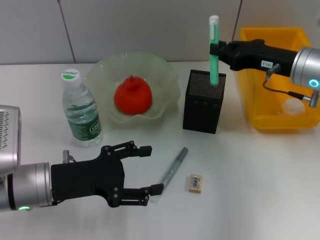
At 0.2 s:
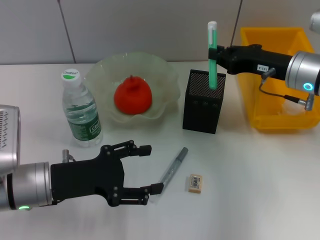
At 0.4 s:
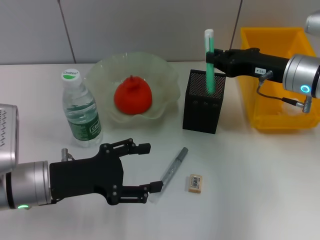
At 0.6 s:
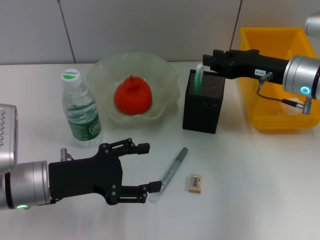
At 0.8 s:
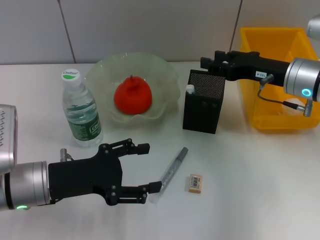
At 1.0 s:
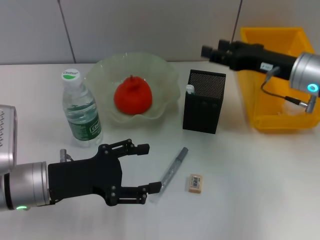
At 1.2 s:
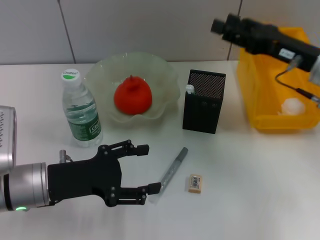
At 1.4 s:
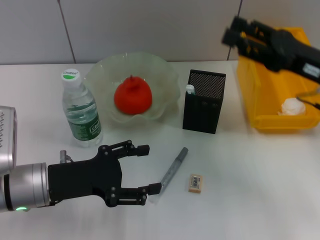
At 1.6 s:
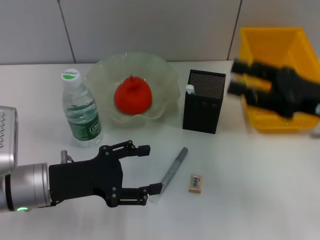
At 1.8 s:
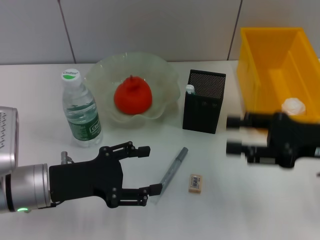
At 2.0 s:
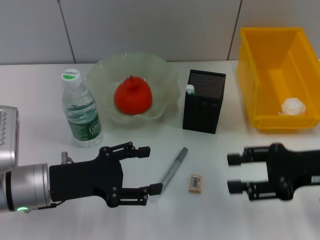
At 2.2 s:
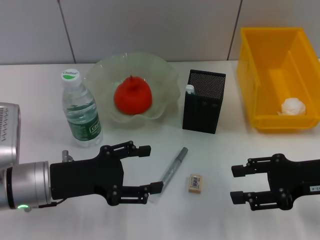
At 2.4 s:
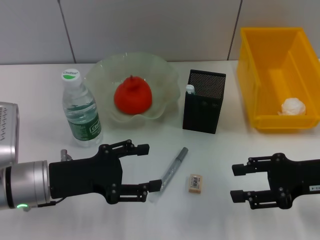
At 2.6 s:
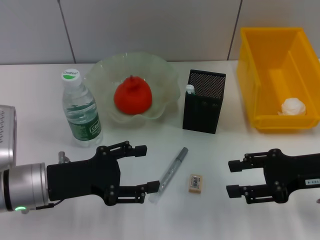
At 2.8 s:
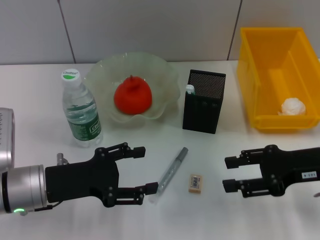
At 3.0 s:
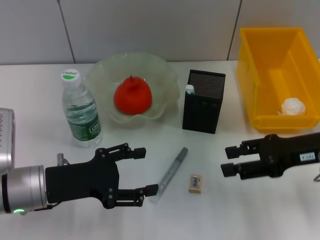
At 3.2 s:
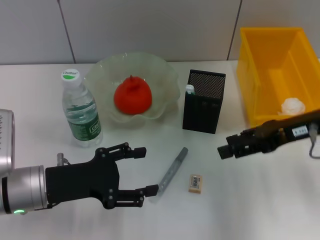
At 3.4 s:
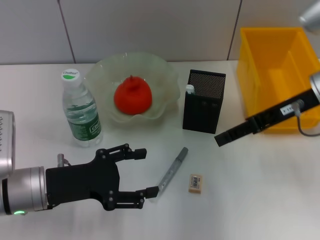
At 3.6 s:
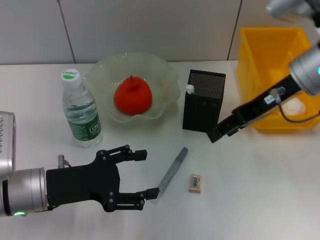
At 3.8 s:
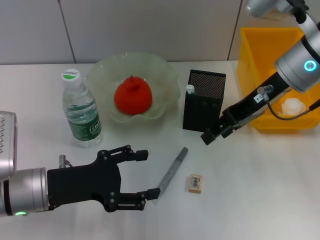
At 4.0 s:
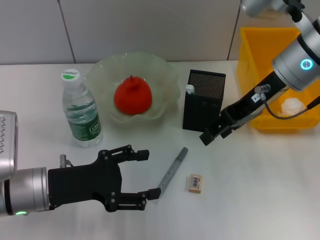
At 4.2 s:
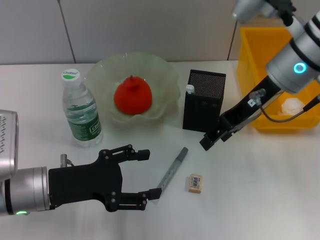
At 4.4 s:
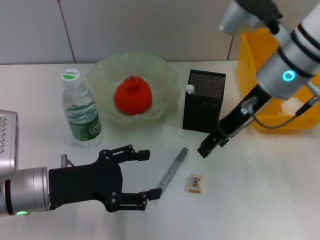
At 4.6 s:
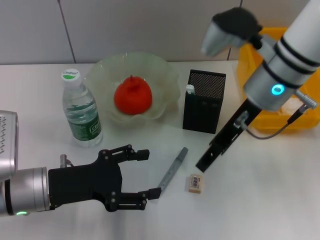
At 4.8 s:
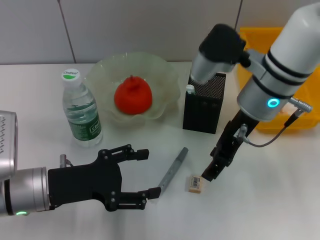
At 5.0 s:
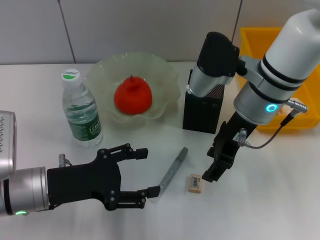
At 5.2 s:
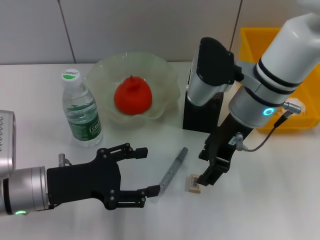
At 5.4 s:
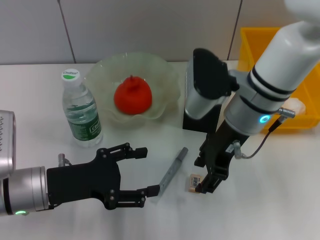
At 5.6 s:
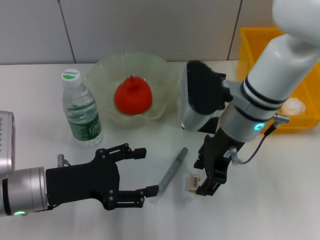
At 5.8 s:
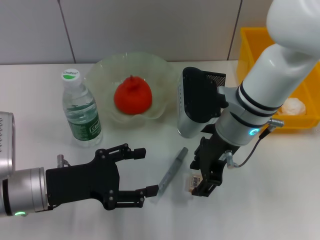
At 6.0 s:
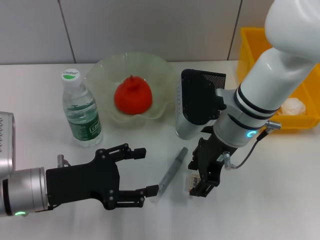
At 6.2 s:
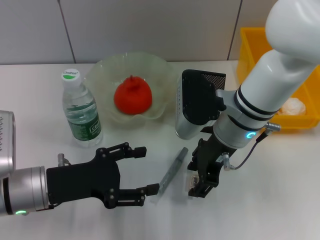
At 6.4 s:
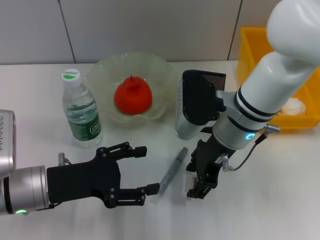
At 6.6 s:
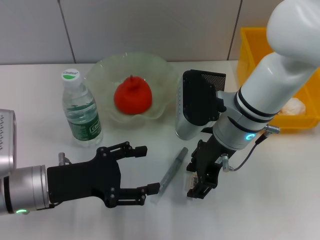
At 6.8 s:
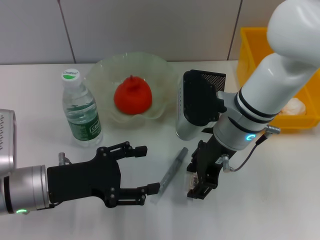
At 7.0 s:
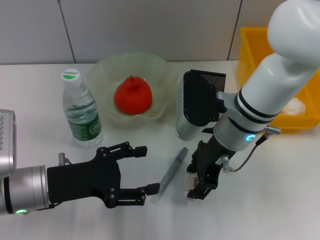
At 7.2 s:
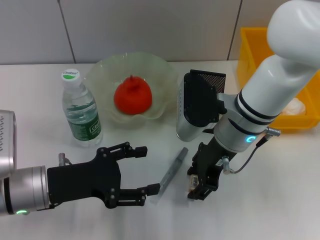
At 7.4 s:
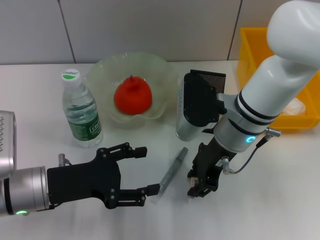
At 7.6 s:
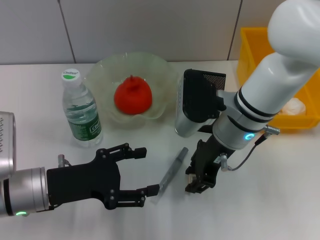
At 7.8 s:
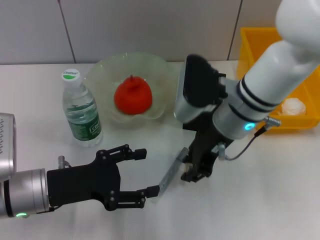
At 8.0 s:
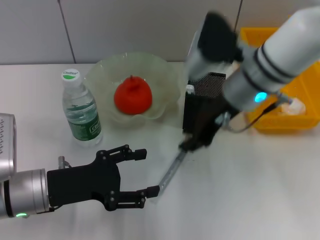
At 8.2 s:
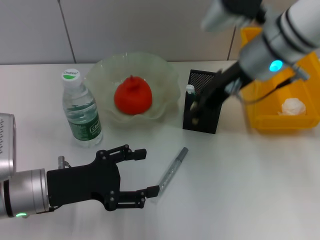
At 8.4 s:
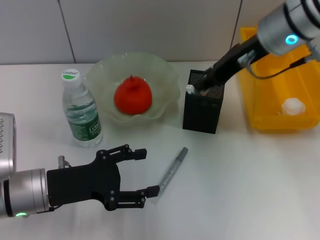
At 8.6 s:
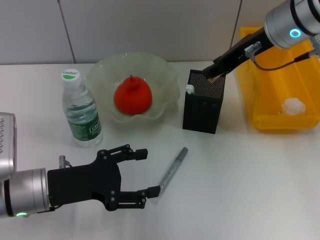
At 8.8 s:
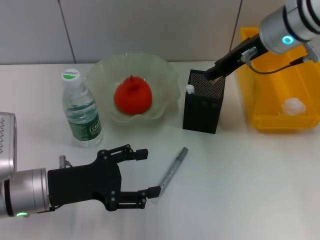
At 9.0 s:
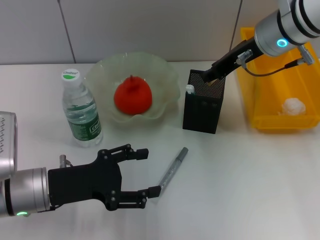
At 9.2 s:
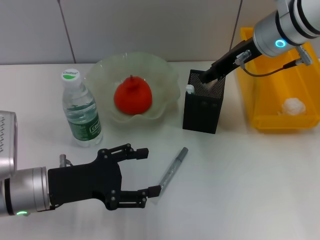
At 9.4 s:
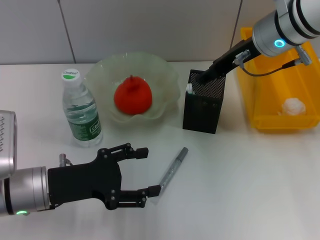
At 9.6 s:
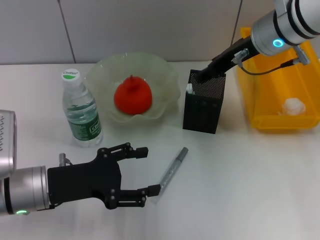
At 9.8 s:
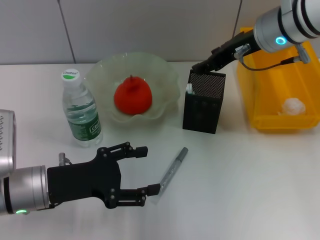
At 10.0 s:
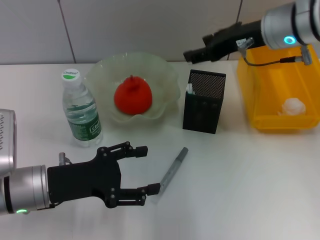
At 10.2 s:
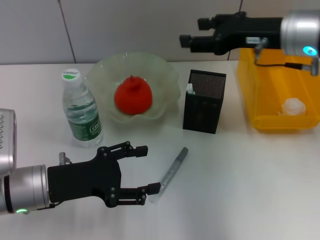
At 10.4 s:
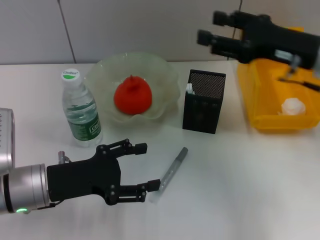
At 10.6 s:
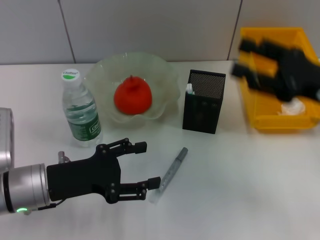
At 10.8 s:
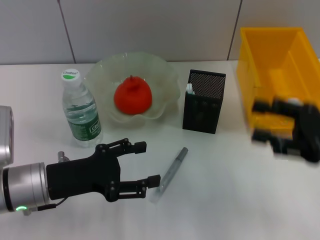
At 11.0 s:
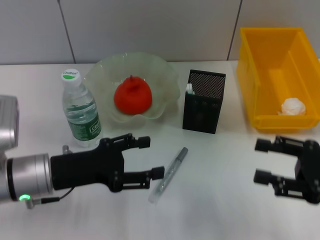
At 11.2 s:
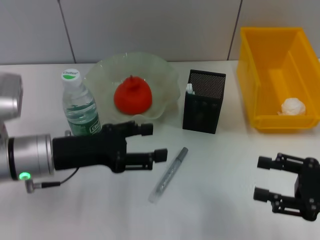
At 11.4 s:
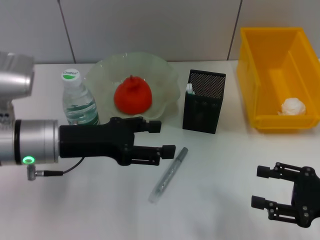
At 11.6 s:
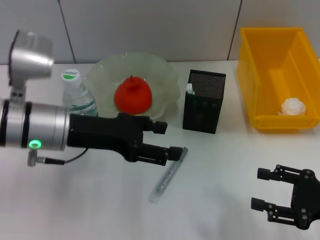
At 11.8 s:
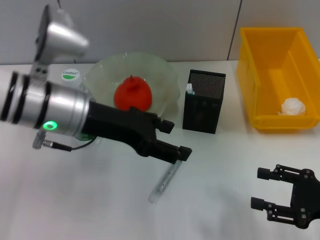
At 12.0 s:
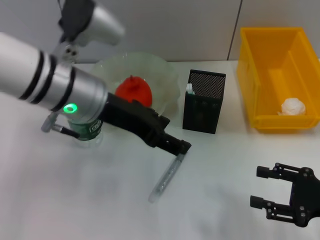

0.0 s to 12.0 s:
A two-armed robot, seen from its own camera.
Step, 1.2 to 7.4 s: Grab the eraser with the right hand.
Step, 7.6 to 9.4 s: Put the eraser into the pen holder with the right hand.
0.0 to 1.6 s: The right gripper is displaced backward by roughly 10 cm, and opens up.
3.0 to 4.4 s: The right gripper goes about 15 cm to the left, forward and upward.
4.4 to 6.0 s: The right gripper goes some 10 cm downward and to the left.
6.0 to 7.6 s: Both grippers stay about where they are.
7.6 to 9.0 s: The right gripper goes roughly 15 cm upward, forward and to the right.
9.0 to 10.4 s: The right gripper travels to the right and backward by roughly 10 cm, and opens up.
10.4 to 12.0 s: The left gripper goes roughly 20 cm upward, to the right and forward. Meanwhile the right gripper goes roughly 20 cm downward, backward and to the right.

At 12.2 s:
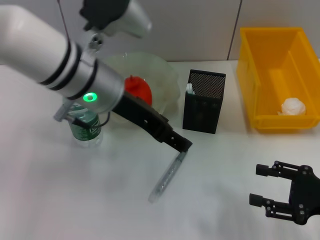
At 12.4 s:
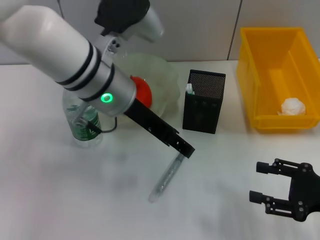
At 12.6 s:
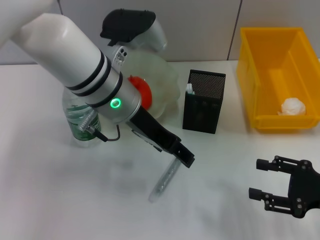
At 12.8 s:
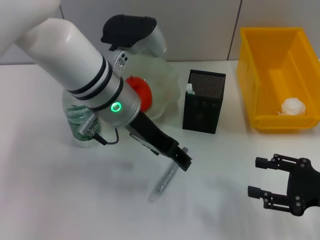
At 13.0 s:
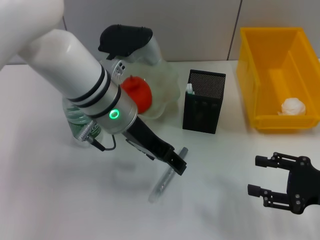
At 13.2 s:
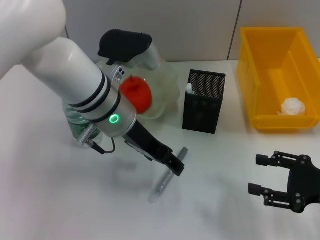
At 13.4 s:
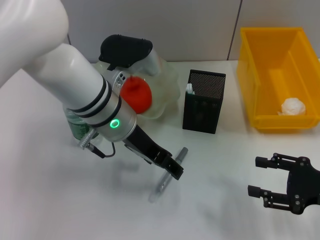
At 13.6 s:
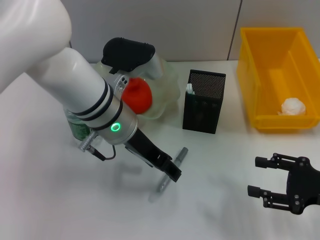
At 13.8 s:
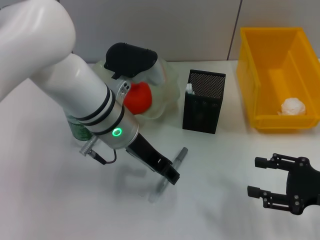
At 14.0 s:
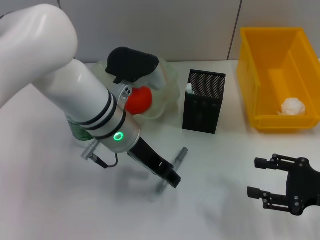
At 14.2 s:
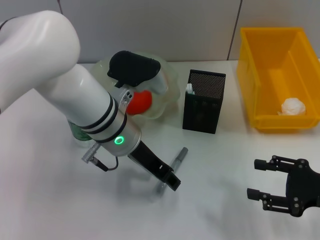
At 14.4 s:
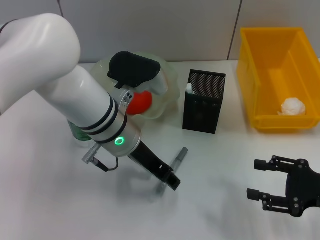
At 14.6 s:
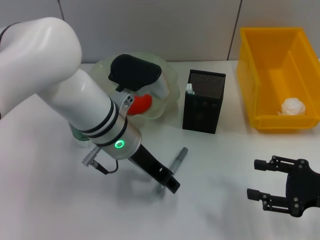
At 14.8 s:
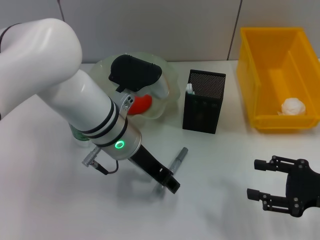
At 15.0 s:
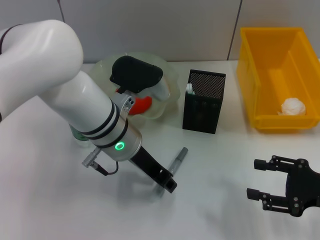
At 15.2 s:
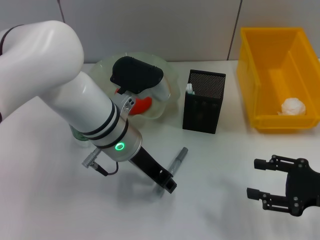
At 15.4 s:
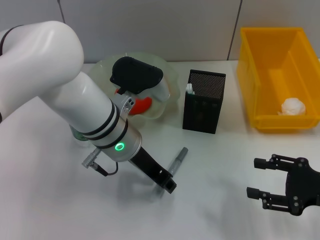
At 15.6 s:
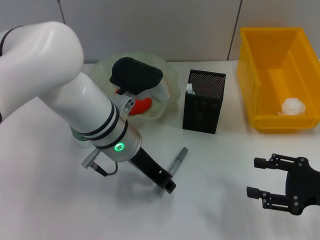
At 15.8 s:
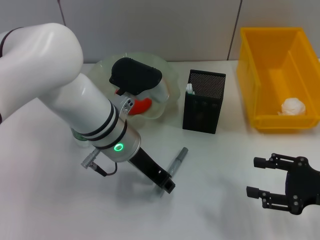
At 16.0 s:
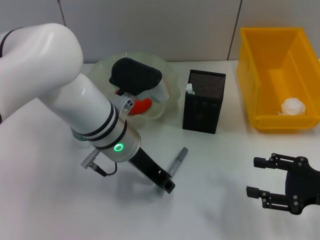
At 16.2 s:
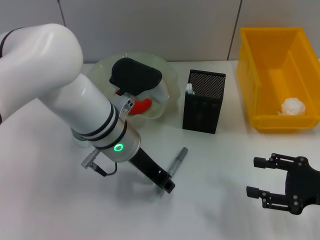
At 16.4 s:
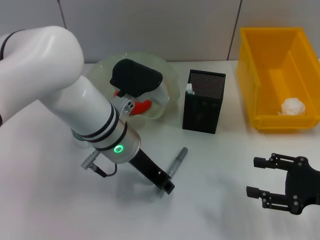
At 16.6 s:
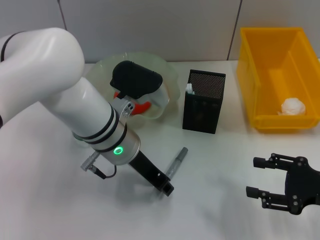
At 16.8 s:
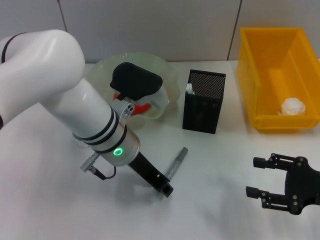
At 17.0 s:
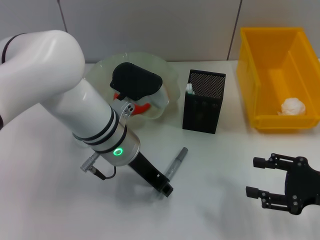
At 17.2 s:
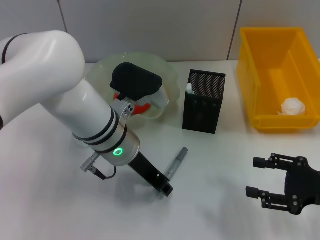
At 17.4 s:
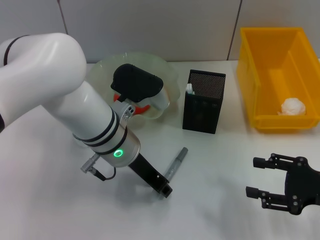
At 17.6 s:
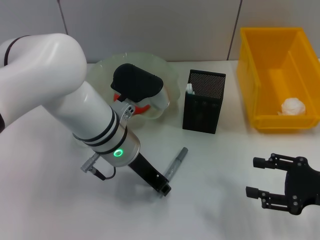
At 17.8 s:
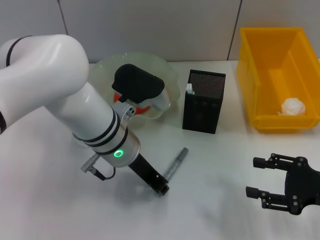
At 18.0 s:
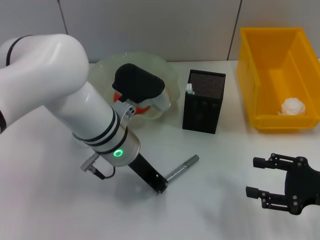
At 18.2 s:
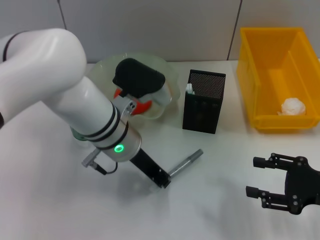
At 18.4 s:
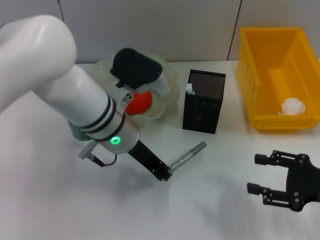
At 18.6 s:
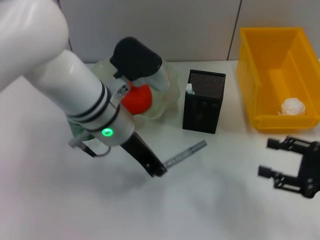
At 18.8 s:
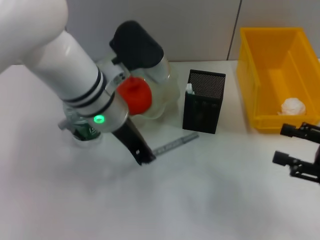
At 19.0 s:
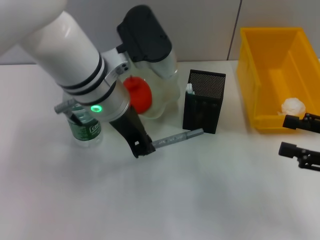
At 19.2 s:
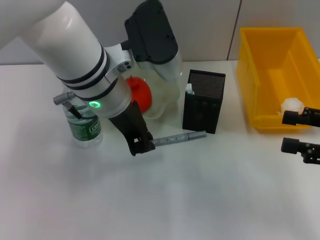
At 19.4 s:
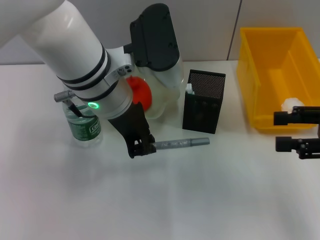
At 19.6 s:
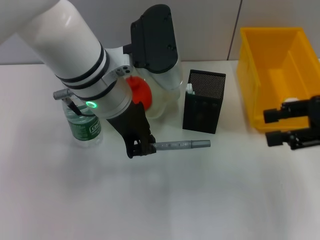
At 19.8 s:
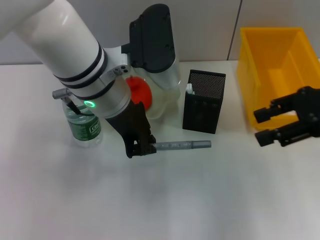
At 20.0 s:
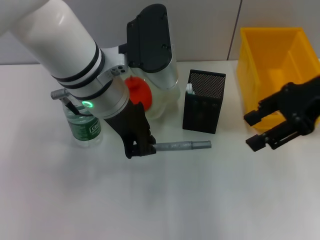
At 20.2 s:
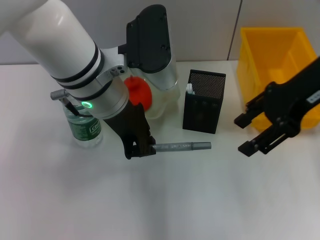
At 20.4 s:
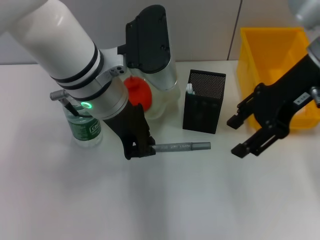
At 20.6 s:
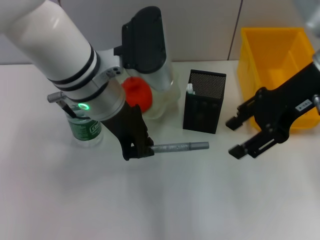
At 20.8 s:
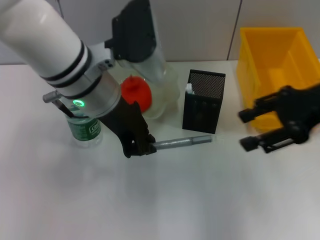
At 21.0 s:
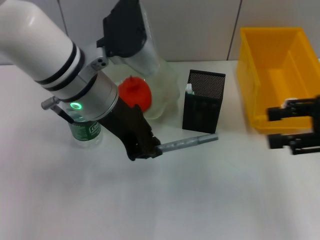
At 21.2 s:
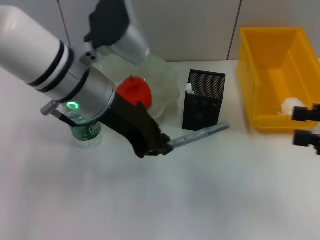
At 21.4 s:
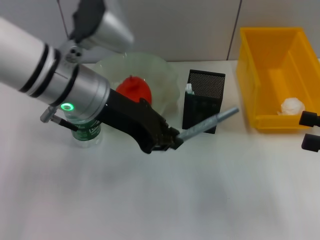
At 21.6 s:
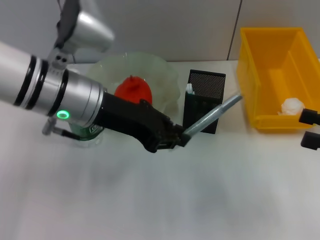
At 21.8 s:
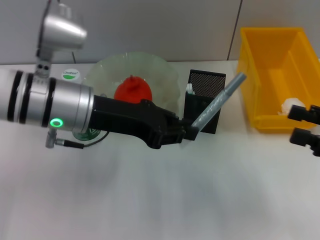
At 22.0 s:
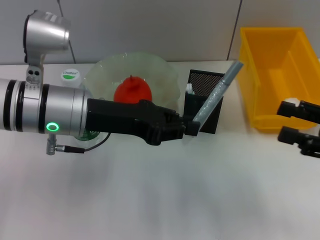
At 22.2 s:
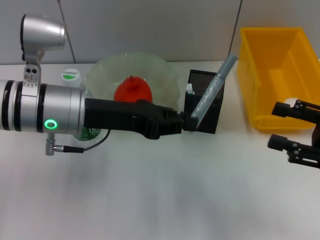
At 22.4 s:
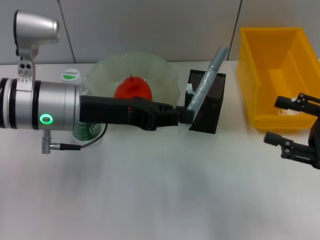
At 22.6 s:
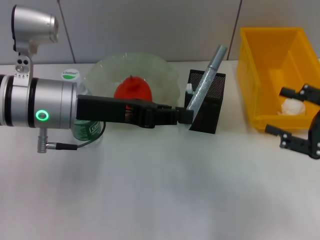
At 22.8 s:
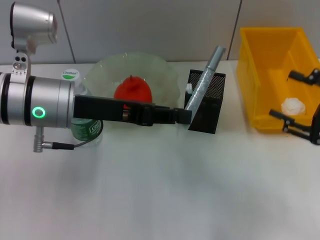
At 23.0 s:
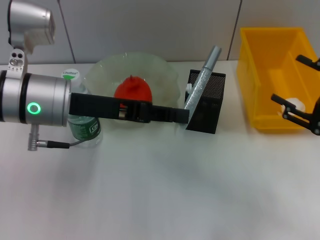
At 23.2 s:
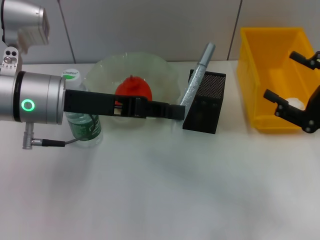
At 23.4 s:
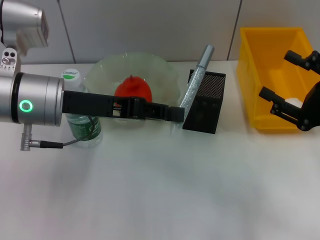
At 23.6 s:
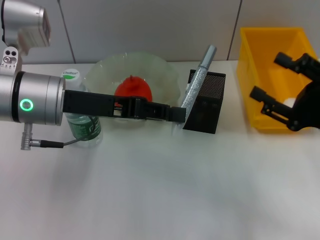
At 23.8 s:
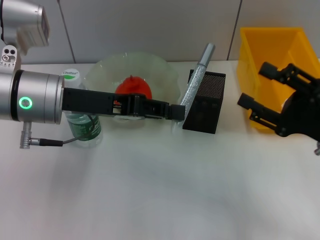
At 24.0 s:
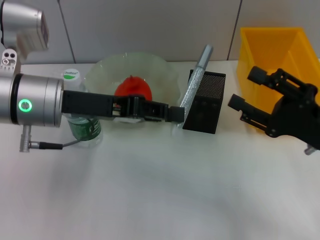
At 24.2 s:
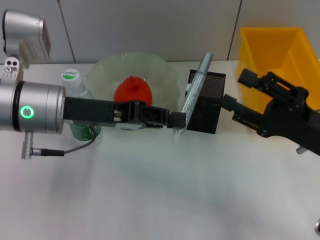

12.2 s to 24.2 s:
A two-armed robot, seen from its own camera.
Step, 12.2 to 17.8 s: Grab the gray glue with the left hand.
12.2 to 13.8 s: The left gripper shifts roughly 5 cm downward.
13.8 to 15.2 s: The grippers make only small movements.
15.2 to 18.2 s: Both grippers stay put.
18.2 to 19.8 s: The right gripper goes some 20 cm upward and forward; the left gripper moves upward, some 10 cm.
19.8 to 21.2 s: The right gripper goes approximately 10 cm backward, downward and to the right.
21.2 to 22.6 s: The left gripper moves to the left, some 5 cm.
22.6 to 24.2 s: The right gripper is displaced to the left by approximately 5 cm.
